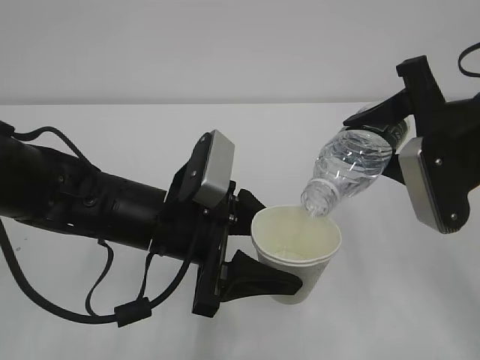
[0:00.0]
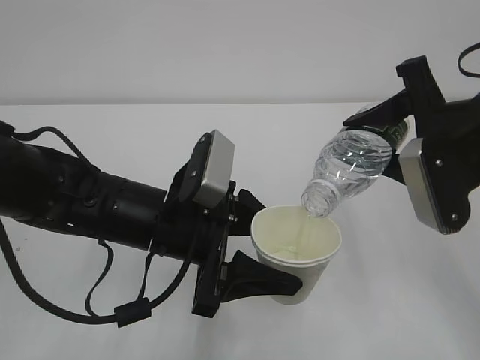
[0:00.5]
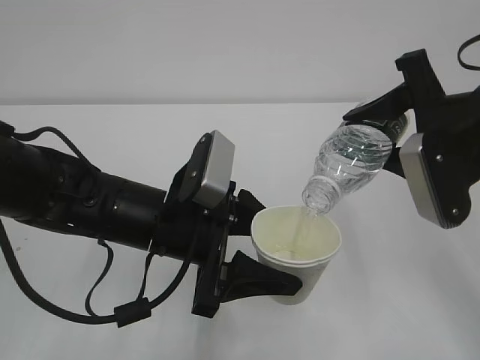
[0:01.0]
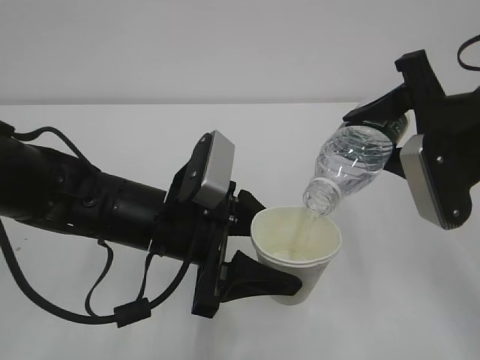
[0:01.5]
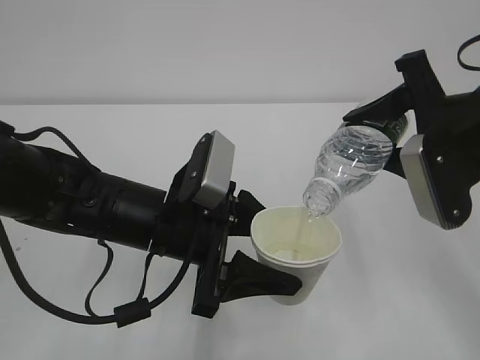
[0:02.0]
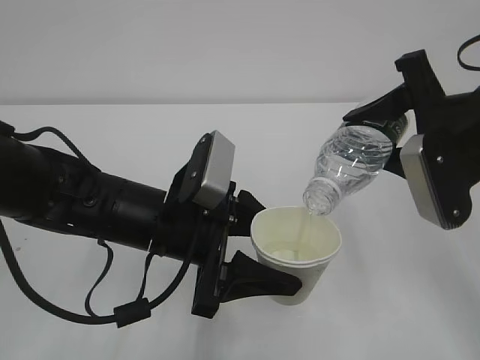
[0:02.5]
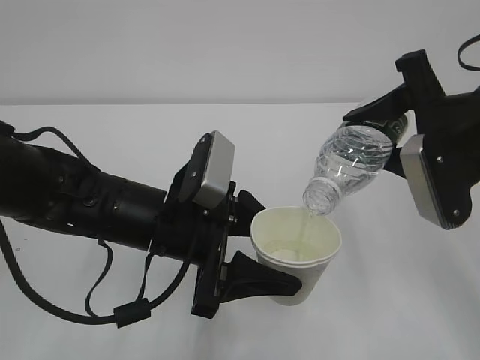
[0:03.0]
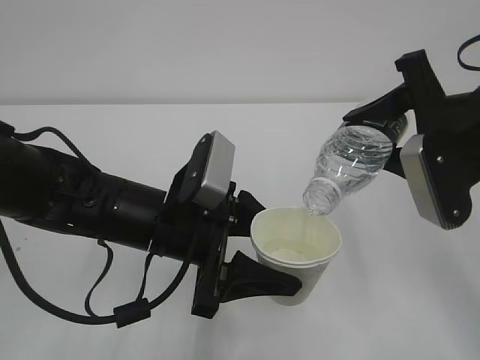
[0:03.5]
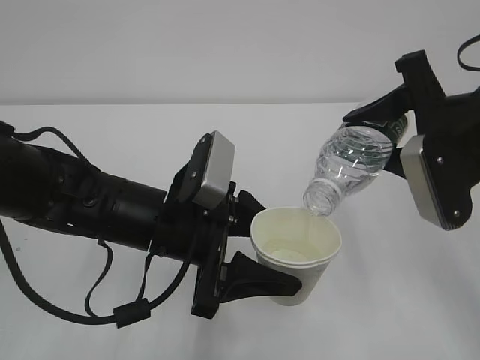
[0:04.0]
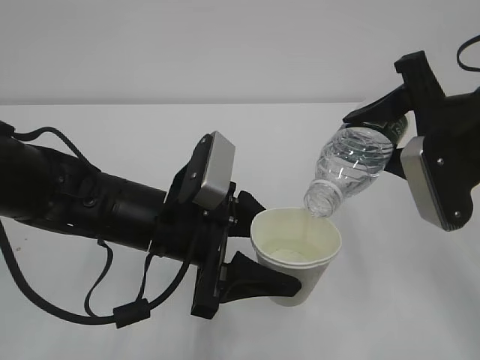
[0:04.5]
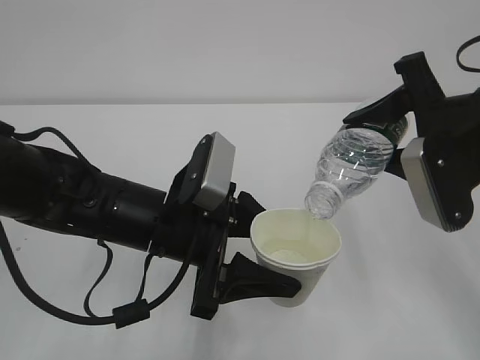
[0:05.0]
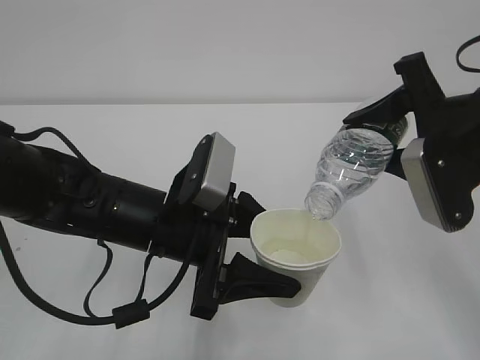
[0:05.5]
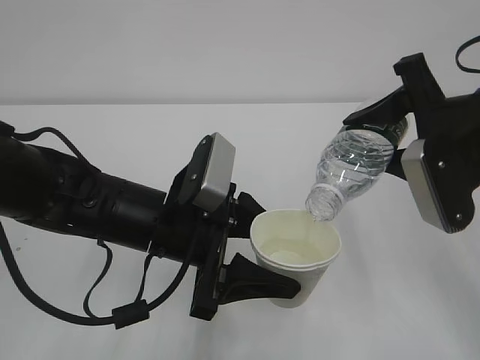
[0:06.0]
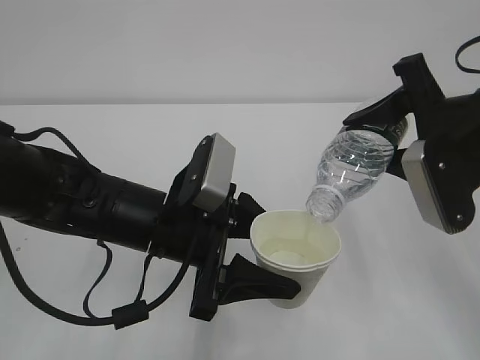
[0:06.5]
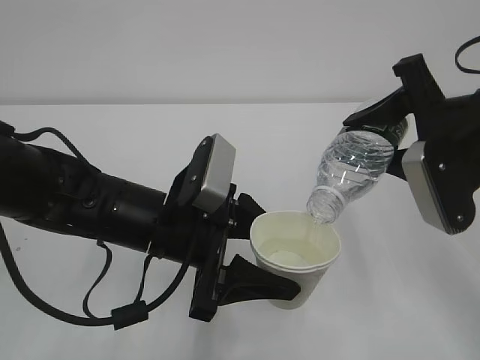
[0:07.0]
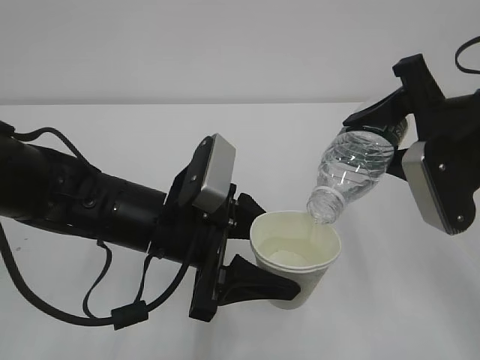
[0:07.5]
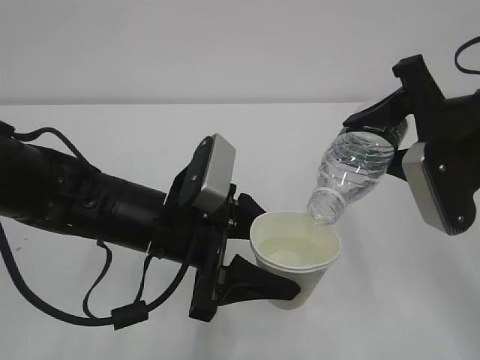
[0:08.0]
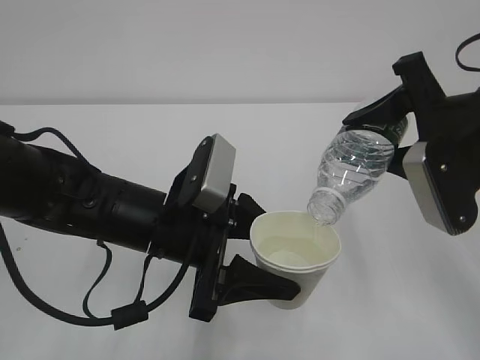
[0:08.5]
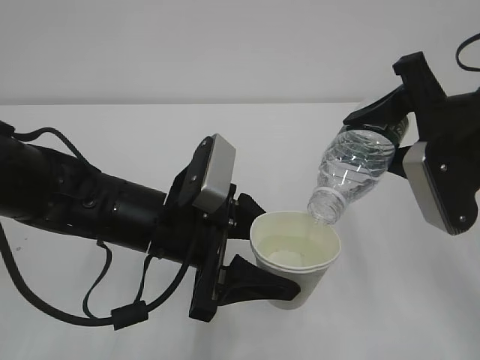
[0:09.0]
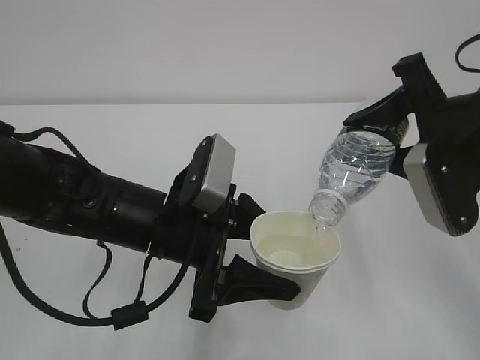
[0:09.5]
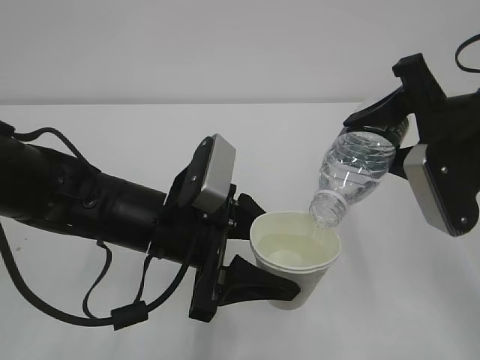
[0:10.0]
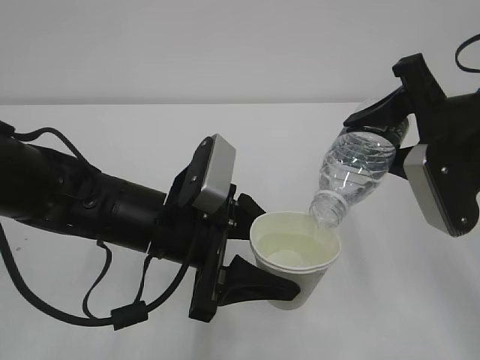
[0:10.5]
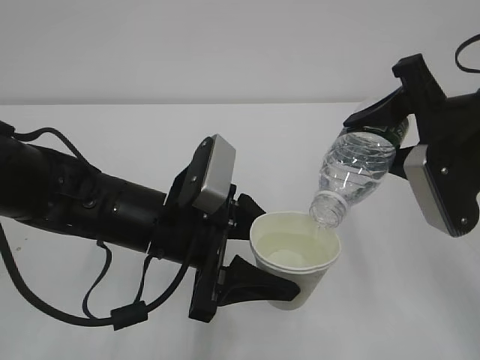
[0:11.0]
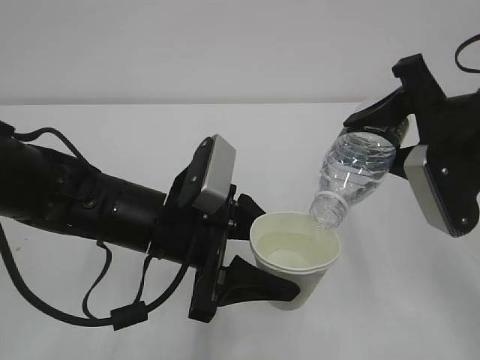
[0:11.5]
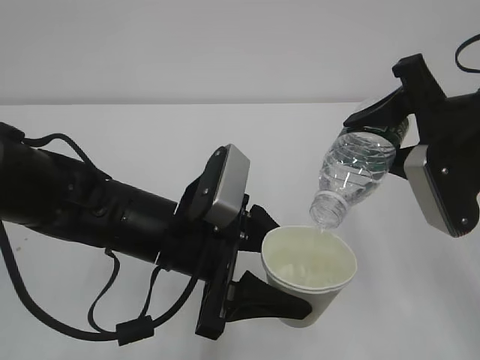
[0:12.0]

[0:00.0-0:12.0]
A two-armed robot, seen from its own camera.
0:00.0 to 0:06.0: Both grippers stay put.
0:06.0 to 0:12.0: Neither gripper changes place.

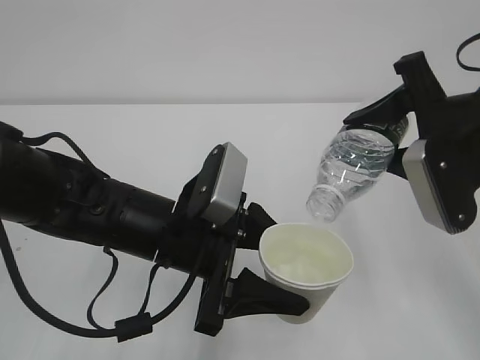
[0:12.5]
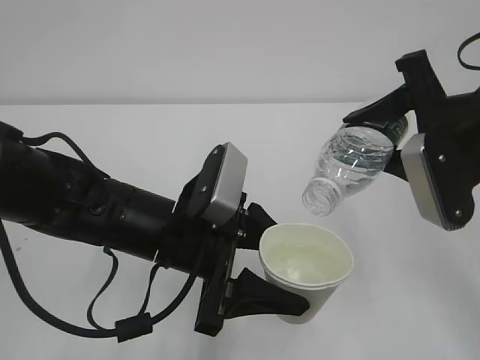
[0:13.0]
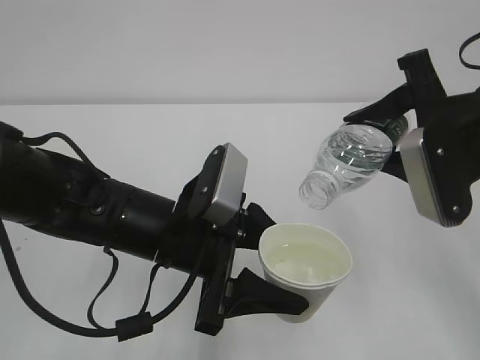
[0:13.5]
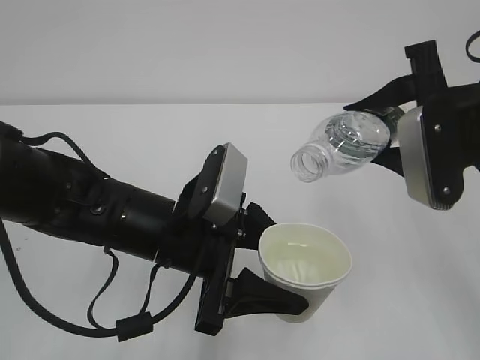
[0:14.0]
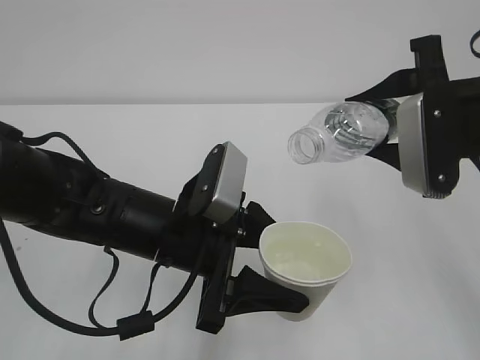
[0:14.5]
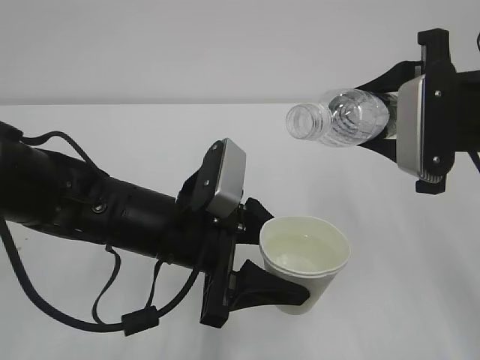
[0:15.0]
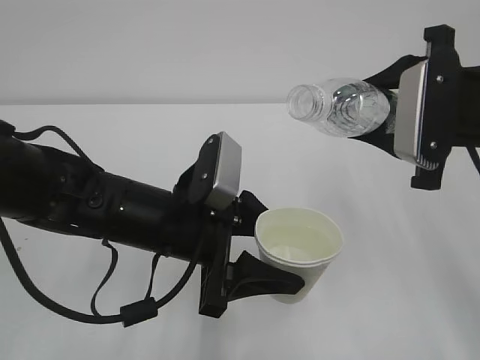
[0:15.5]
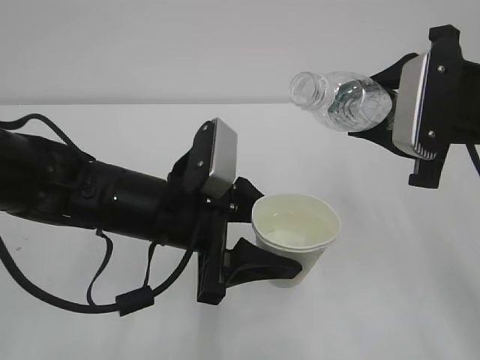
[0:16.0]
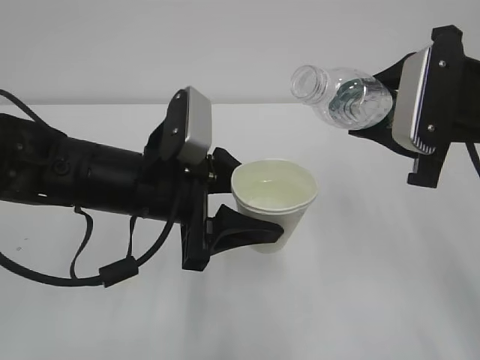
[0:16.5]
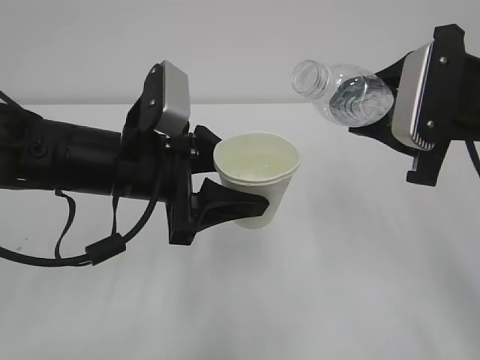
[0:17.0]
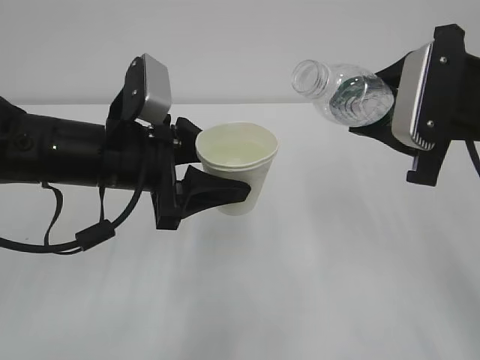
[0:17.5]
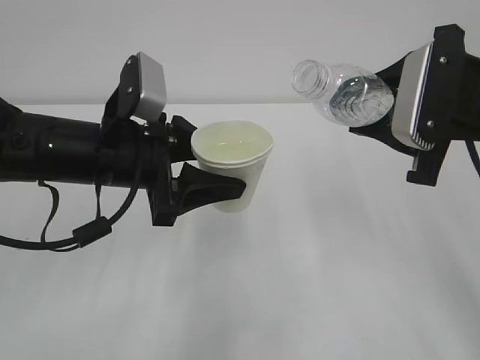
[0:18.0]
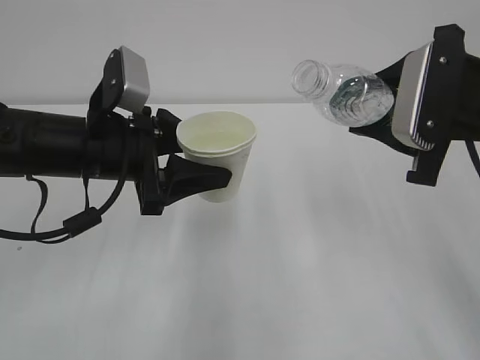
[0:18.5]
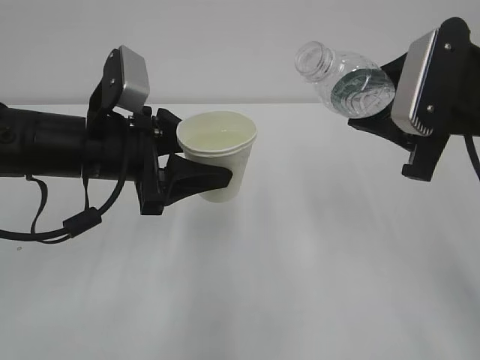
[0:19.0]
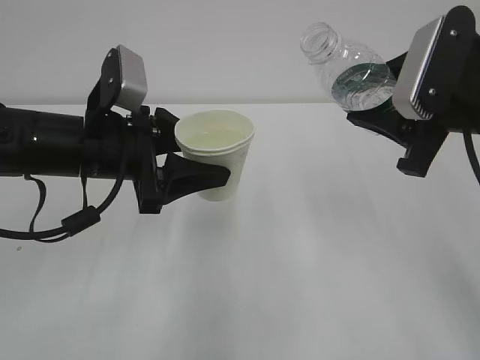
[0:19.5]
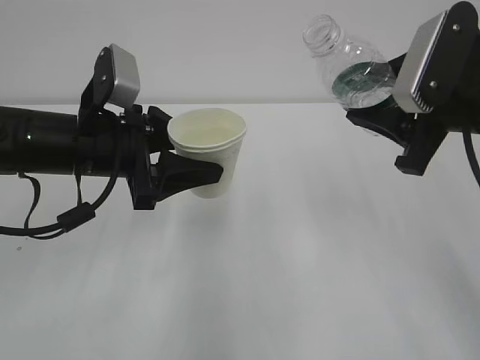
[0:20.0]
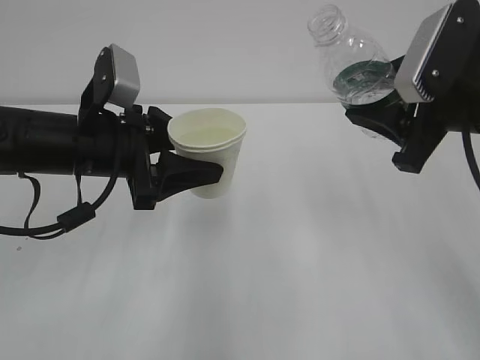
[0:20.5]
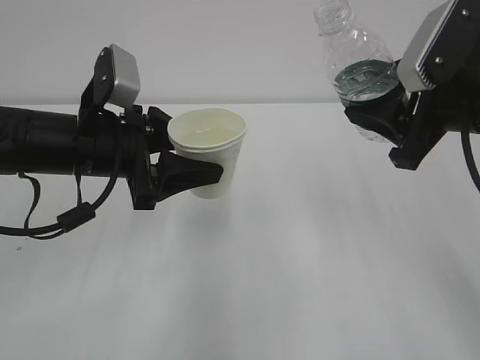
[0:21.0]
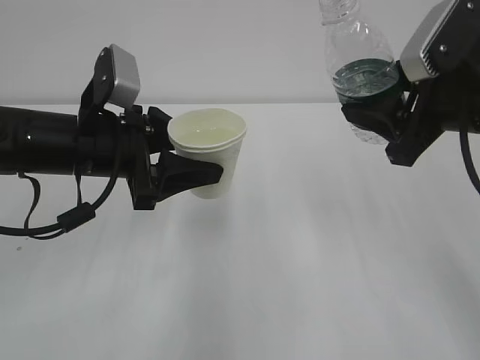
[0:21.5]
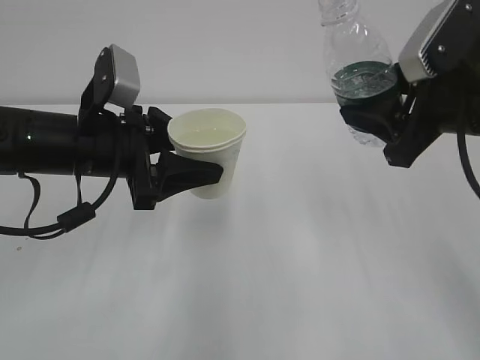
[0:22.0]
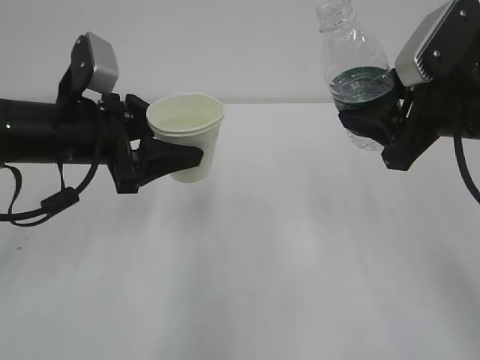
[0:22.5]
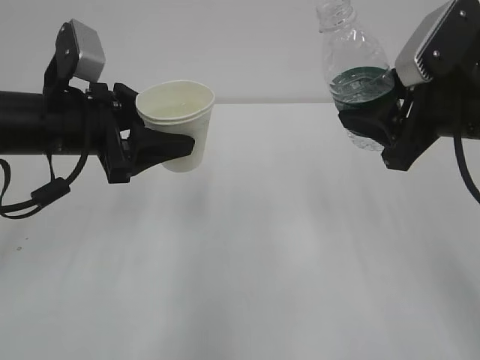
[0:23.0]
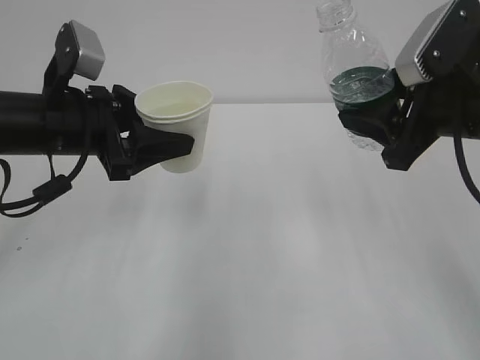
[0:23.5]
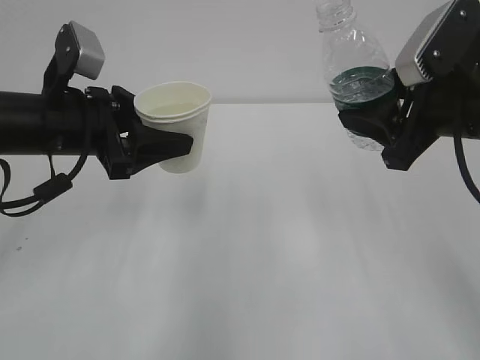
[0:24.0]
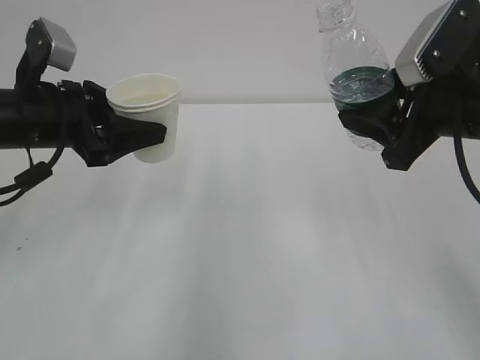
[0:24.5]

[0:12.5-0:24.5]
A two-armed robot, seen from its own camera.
0:14.5 to 0:16.5: The left gripper moves about 5 cm.
0:16.5 to 0:18.5: The left gripper goes approximately 5 cm to the left.
0:18.5 to 0:20.5: The grippers stay close to where they were, moving slightly.
0:20.5 to 0:22.5: The grippers make only small movements.
0:22.5 to 0:24.5: The grippers make only small movements.

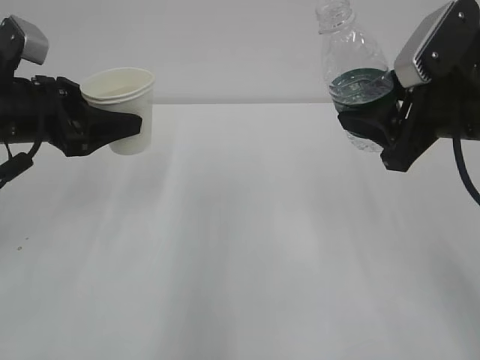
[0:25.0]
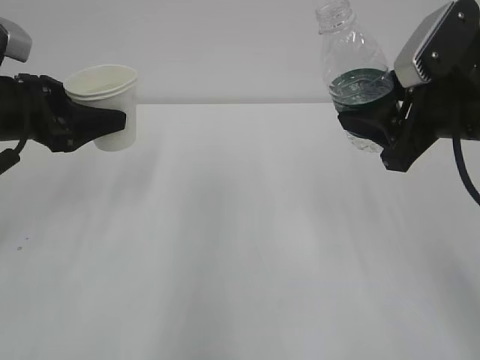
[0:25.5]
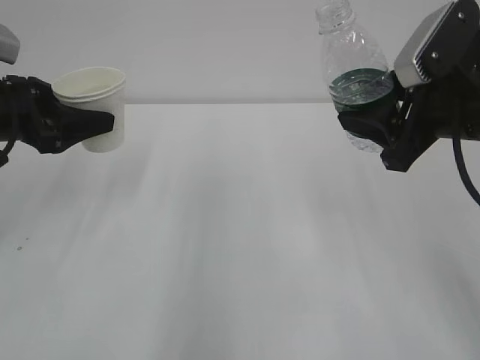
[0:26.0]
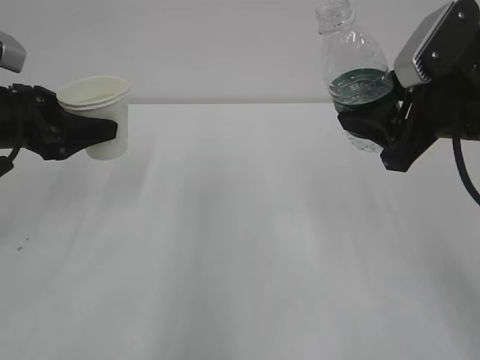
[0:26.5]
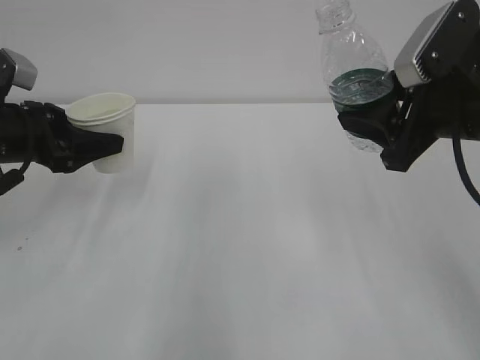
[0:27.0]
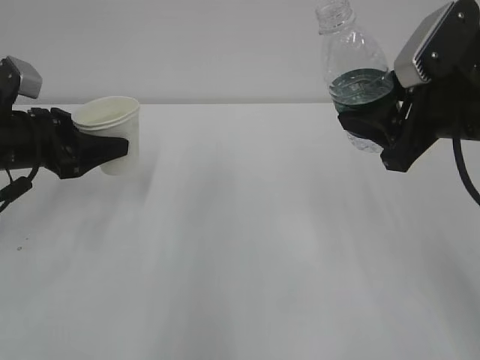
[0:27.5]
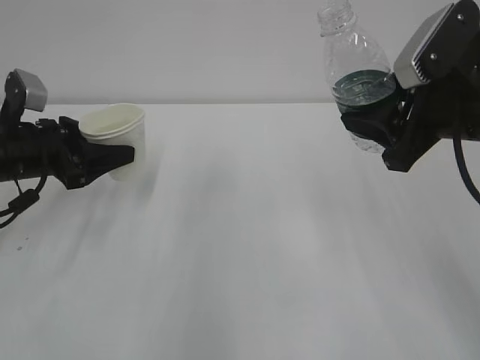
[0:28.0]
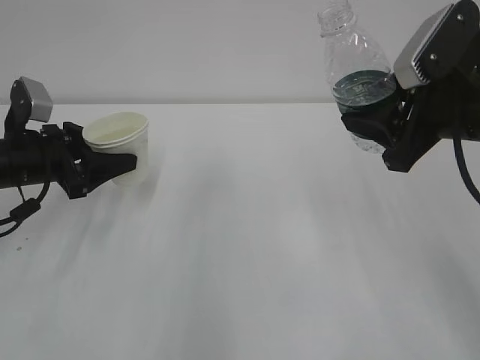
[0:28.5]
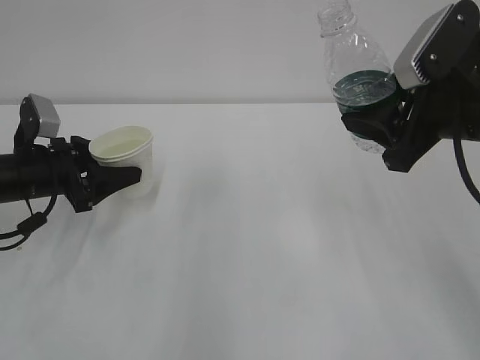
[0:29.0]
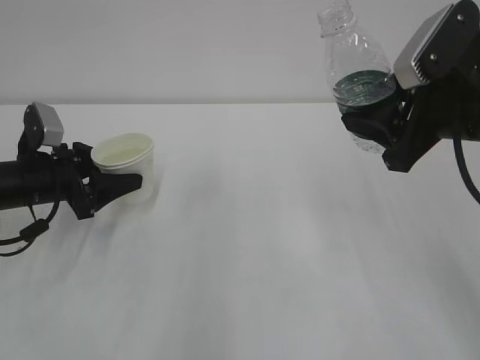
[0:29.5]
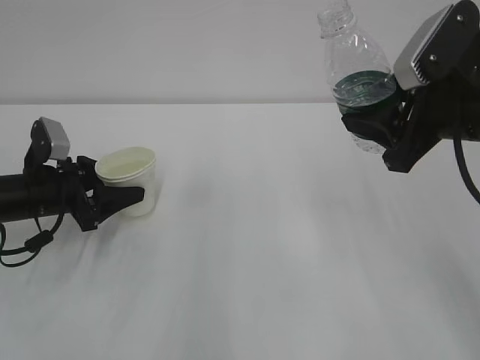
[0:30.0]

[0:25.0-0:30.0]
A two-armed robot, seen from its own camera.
0:25.0 to 0:27.5: The left gripper shifts by some 5 cm.
0:27.5 to 0:30.0: The left gripper moves downward, approximately 10 cm.
